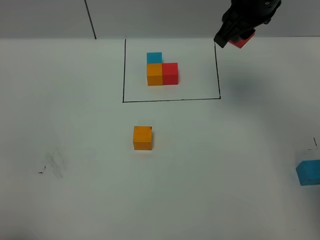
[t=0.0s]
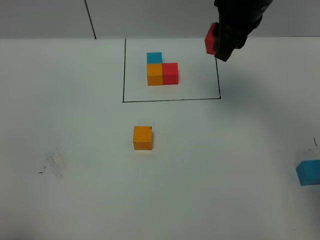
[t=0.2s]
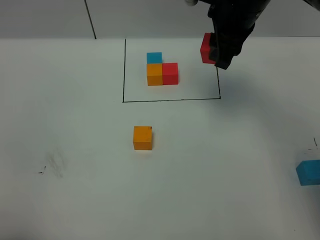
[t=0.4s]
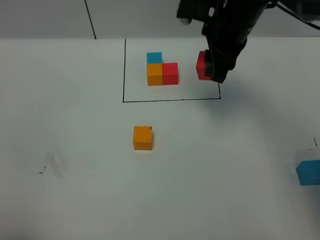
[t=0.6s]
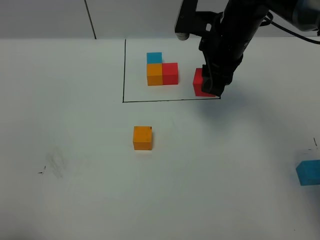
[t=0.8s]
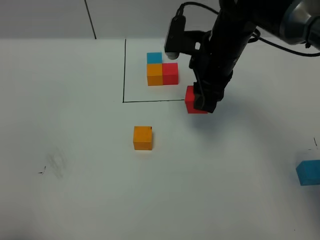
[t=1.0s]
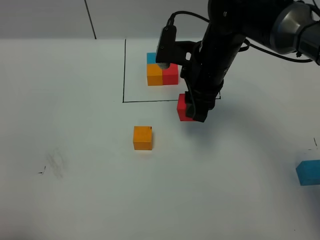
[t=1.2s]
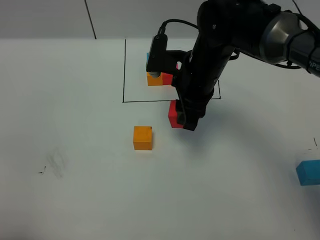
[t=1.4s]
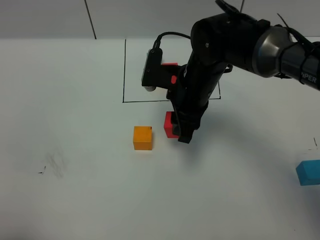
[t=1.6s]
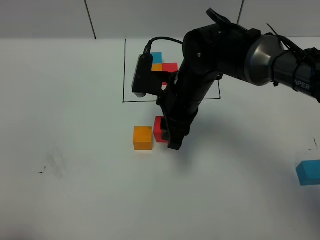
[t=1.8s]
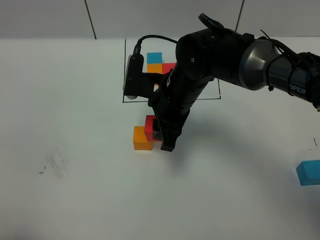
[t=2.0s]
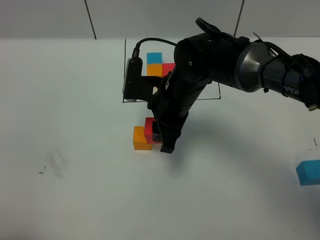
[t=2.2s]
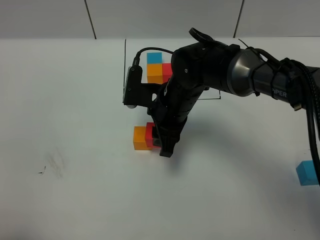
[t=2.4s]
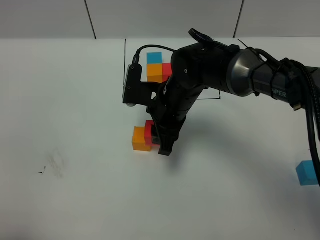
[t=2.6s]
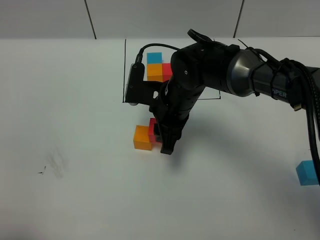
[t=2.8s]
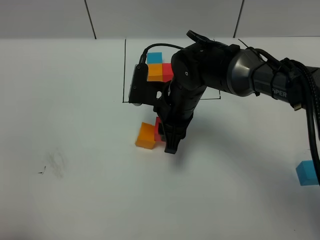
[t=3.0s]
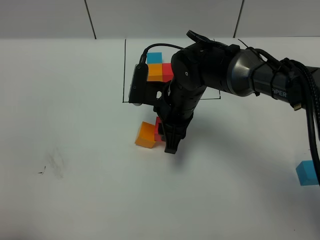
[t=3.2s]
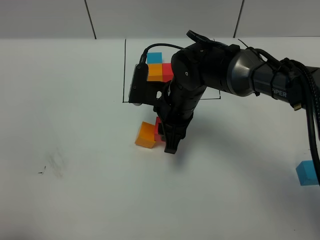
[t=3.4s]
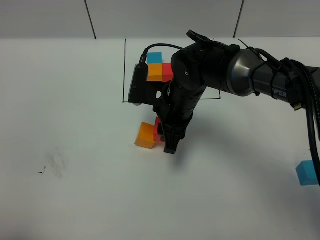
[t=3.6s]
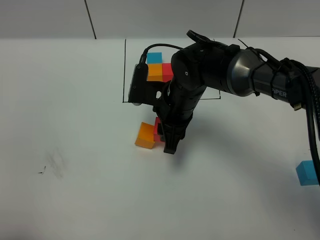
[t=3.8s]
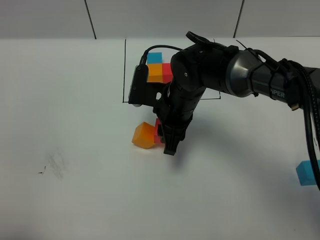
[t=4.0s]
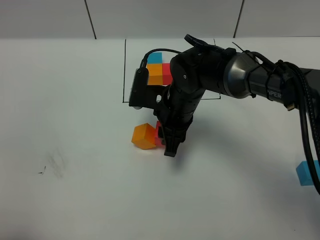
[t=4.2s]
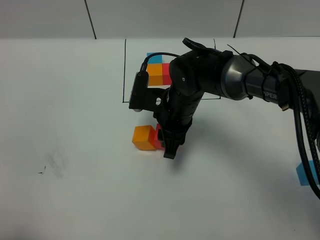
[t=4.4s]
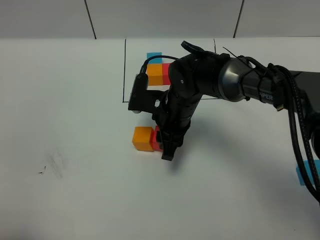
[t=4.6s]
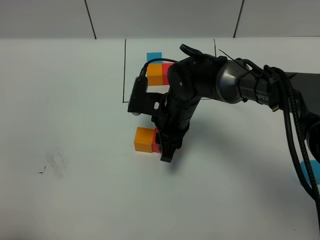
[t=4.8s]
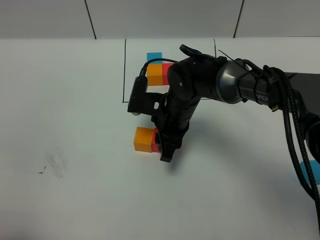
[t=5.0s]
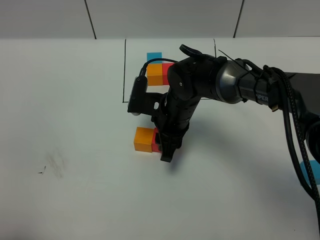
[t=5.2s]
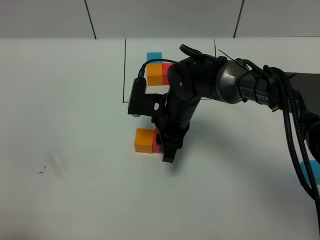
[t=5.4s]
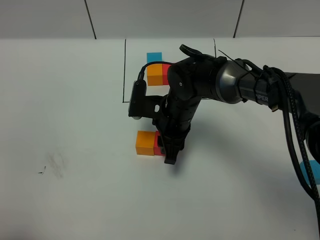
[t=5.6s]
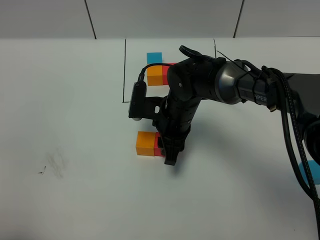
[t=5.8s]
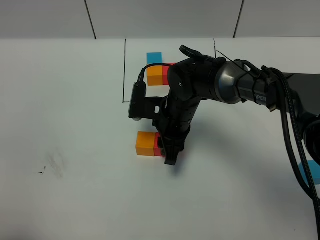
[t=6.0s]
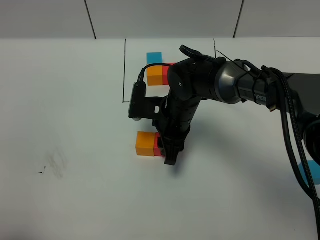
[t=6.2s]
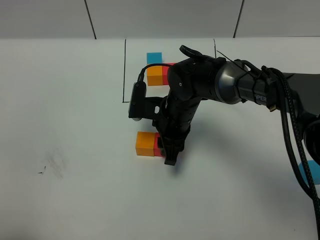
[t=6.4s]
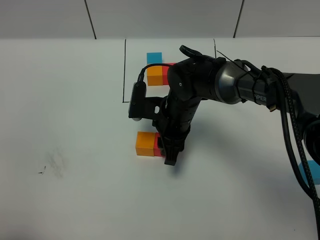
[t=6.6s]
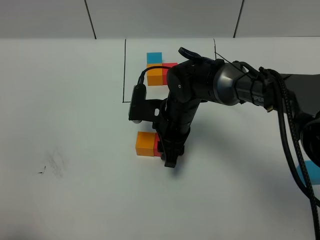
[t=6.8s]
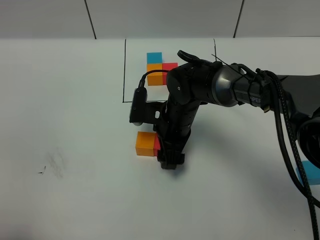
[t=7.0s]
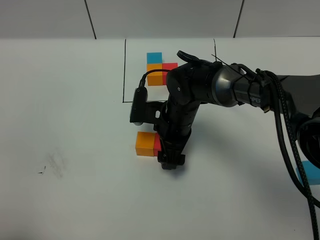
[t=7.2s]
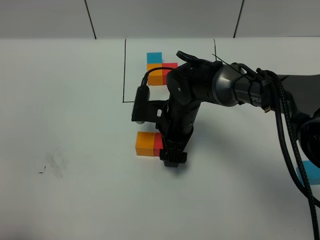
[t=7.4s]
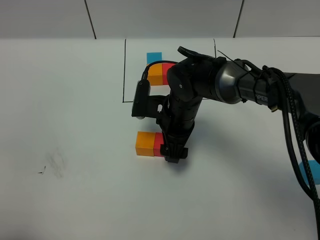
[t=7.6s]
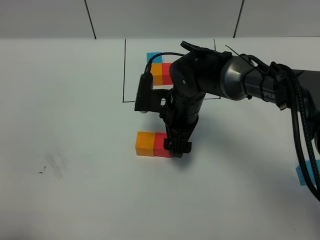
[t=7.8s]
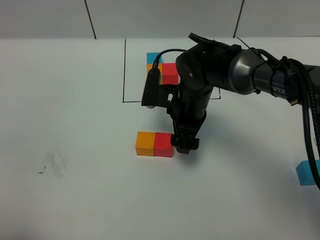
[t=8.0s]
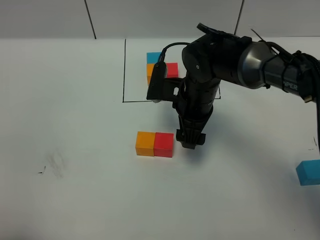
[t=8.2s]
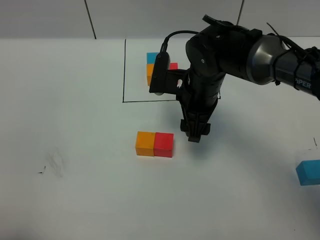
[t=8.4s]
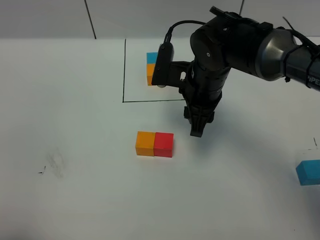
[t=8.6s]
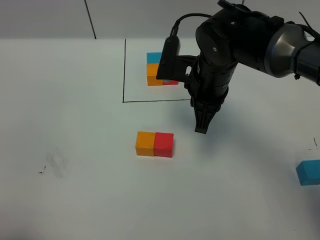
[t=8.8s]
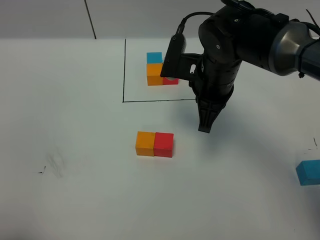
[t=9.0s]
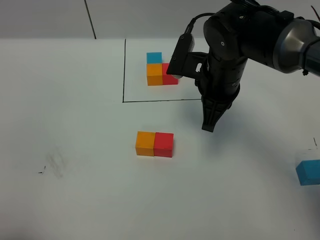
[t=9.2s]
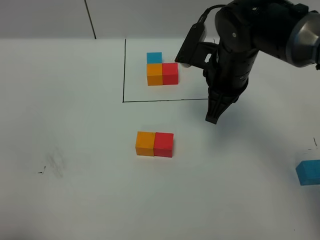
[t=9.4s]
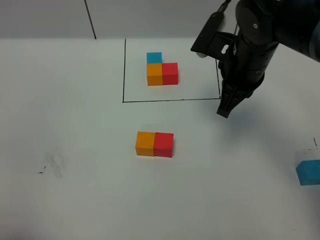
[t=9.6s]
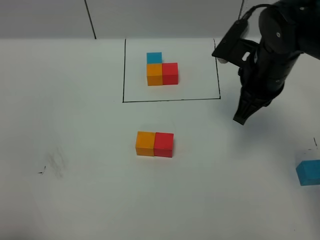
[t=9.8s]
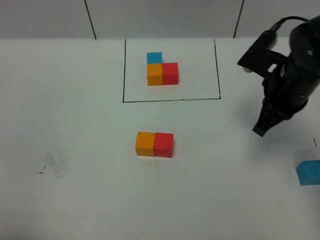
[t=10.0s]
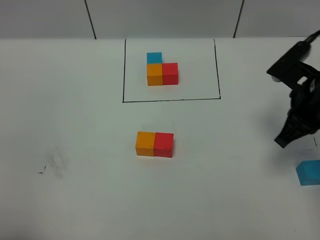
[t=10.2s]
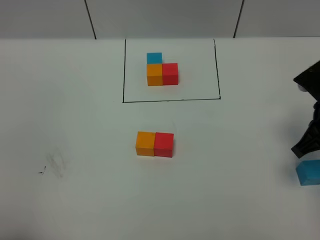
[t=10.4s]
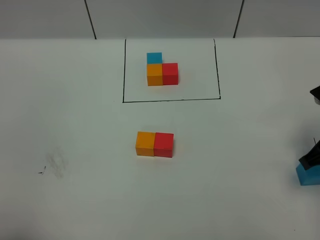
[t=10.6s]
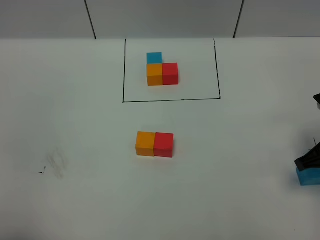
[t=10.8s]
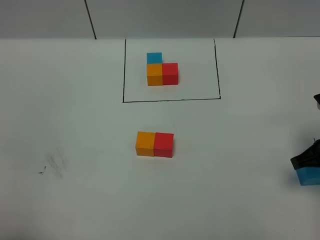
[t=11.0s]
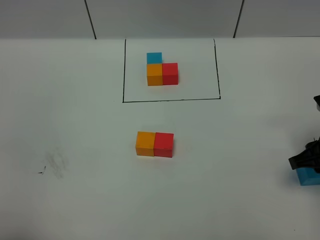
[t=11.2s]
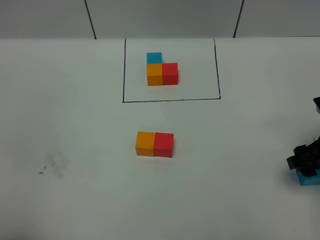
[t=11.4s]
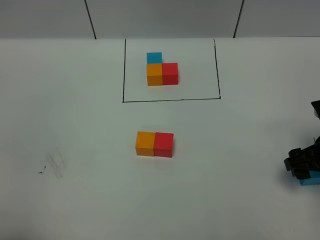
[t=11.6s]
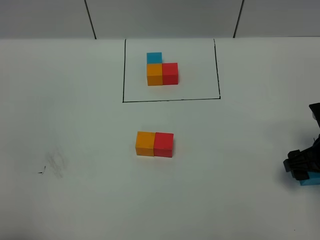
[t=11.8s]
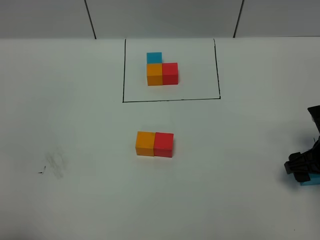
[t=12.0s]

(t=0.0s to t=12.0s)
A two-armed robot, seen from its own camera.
Task of the whole recording: According to the building block template in front, assemble the scattered blocks together.
Step, t=0.0s - t=7.8s: Put the red cube on the right of the orange cube.
t=0.0s - t=1.6s: The right gripper goes some 15 cm downward, to the left and backward.
t=1.6s - t=4.4s: The grippers stay close to where they were, moving slightly.
t=4.4s - t=6.0s: The grippers stay close to where they were, moving slightly.
t=6.0s - t=7.6s: The right gripper opens up.
t=7.6s - t=9.0s: The right gripper moves upward and to the right, about 10 cm, and closes.
t=9.0s - t=10.4s: The right gripper moves to the right and backward, some 20 cm.
t=10.4s - t=12.0s: The right gripper goes about 10 cm downward, and opens its fingers.

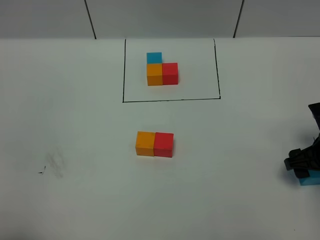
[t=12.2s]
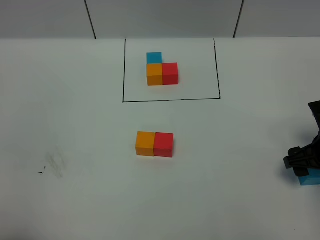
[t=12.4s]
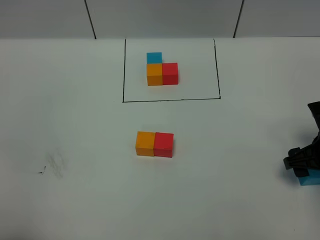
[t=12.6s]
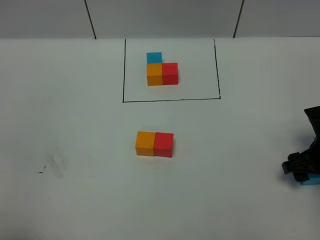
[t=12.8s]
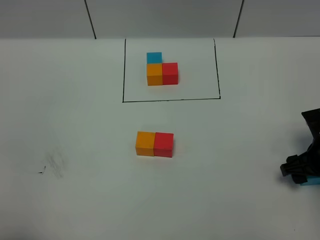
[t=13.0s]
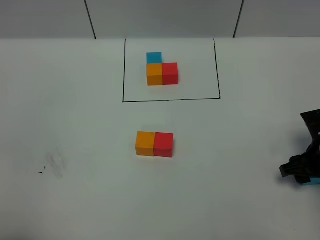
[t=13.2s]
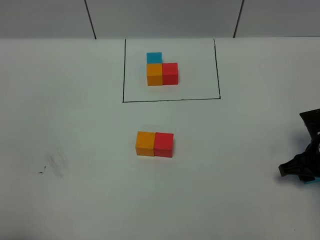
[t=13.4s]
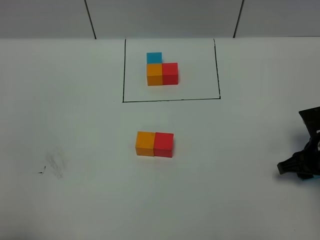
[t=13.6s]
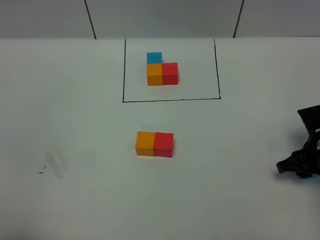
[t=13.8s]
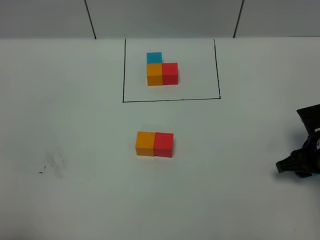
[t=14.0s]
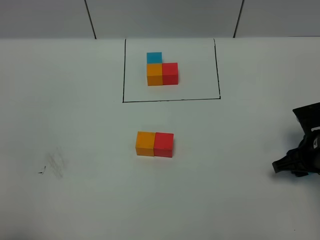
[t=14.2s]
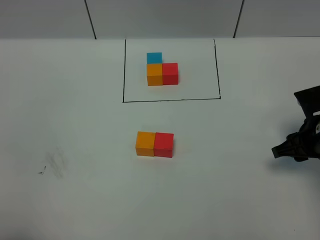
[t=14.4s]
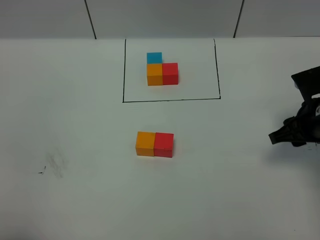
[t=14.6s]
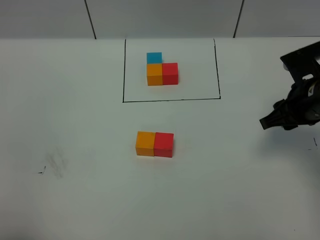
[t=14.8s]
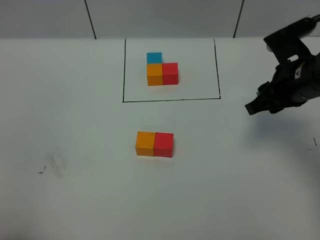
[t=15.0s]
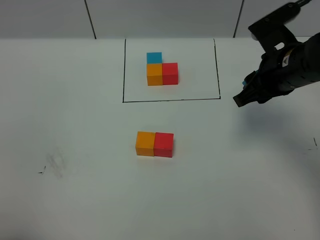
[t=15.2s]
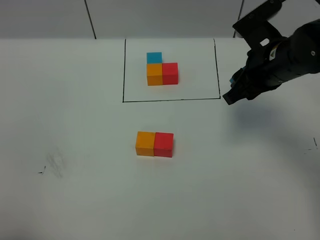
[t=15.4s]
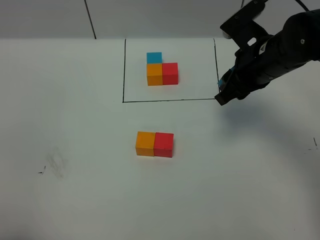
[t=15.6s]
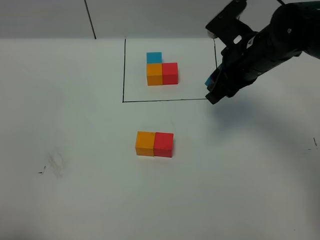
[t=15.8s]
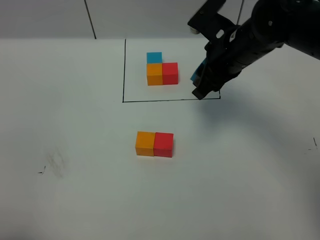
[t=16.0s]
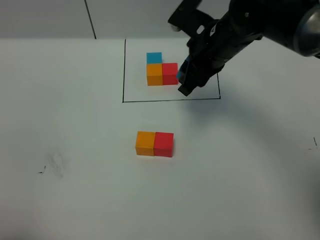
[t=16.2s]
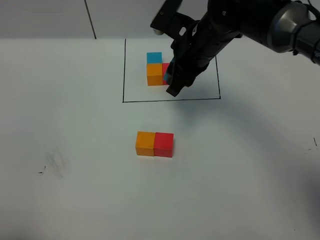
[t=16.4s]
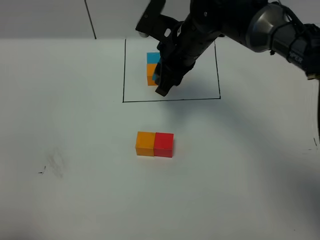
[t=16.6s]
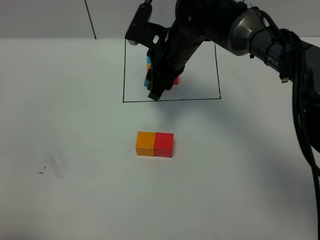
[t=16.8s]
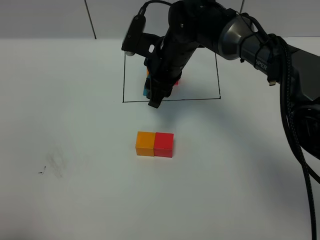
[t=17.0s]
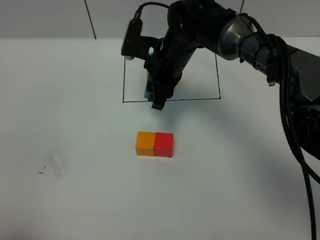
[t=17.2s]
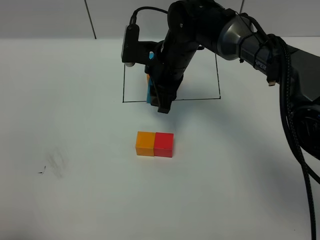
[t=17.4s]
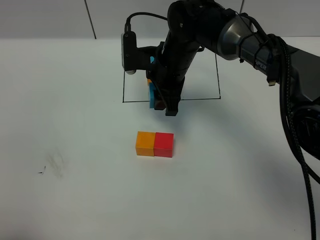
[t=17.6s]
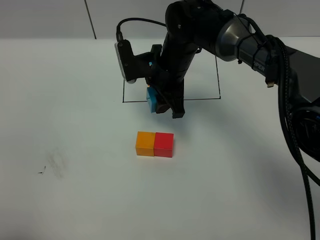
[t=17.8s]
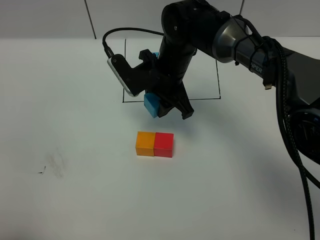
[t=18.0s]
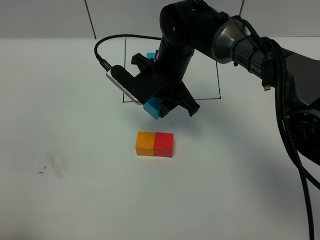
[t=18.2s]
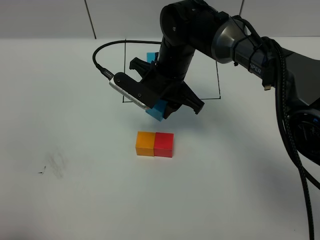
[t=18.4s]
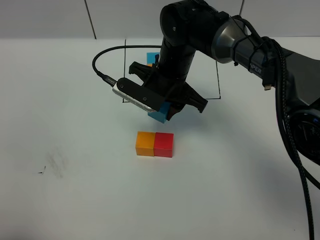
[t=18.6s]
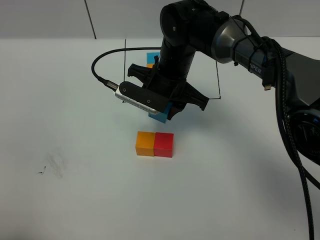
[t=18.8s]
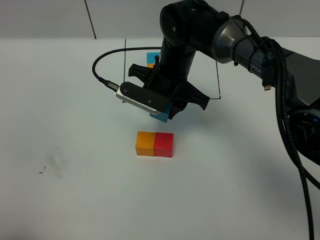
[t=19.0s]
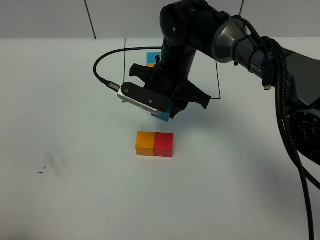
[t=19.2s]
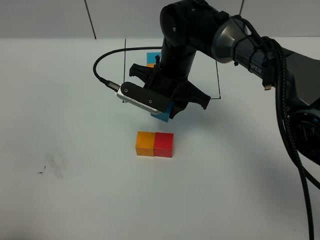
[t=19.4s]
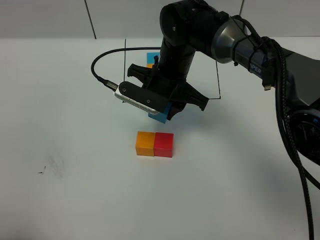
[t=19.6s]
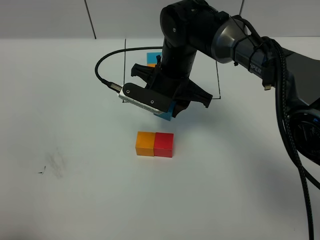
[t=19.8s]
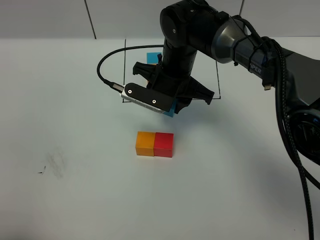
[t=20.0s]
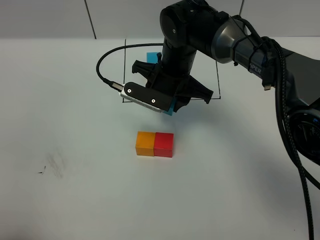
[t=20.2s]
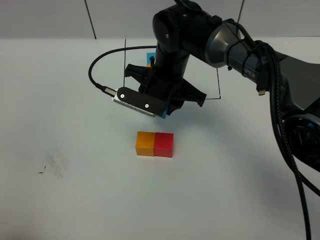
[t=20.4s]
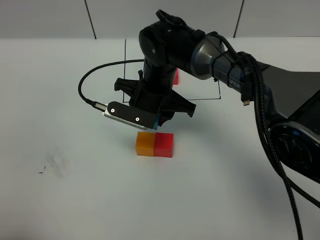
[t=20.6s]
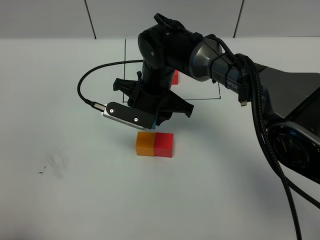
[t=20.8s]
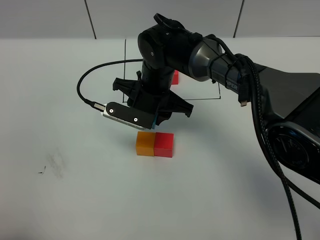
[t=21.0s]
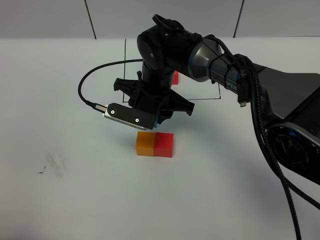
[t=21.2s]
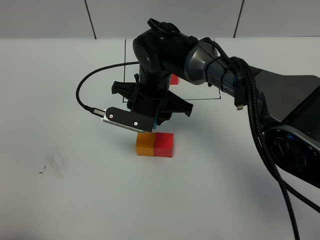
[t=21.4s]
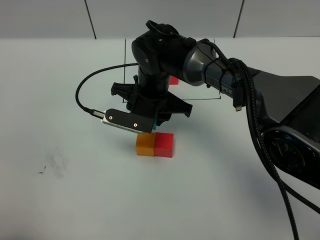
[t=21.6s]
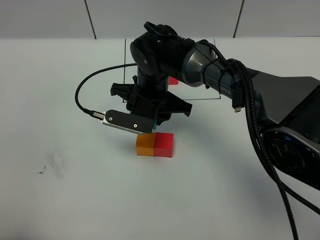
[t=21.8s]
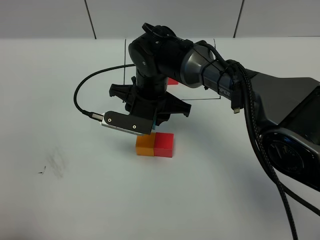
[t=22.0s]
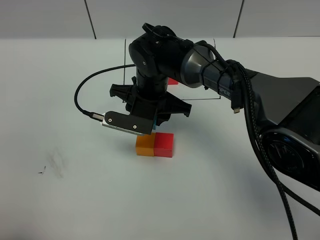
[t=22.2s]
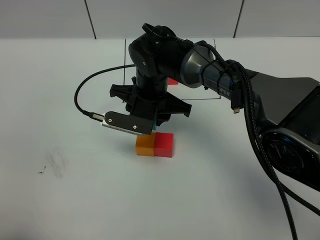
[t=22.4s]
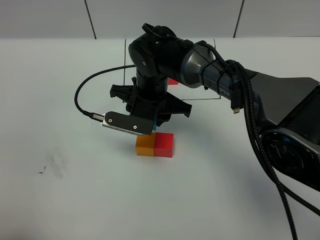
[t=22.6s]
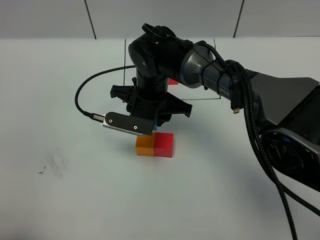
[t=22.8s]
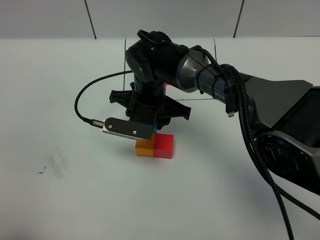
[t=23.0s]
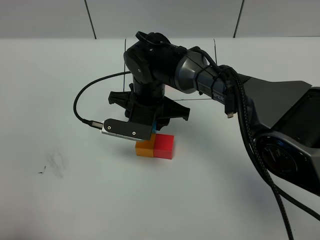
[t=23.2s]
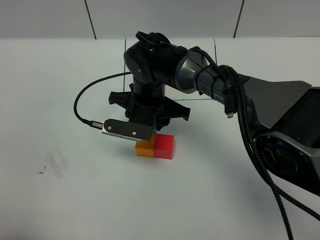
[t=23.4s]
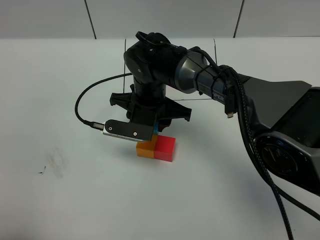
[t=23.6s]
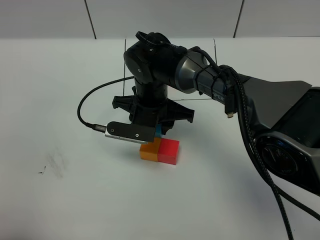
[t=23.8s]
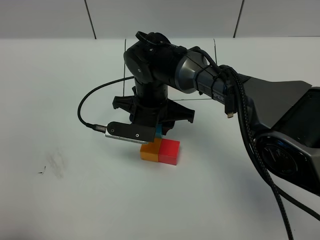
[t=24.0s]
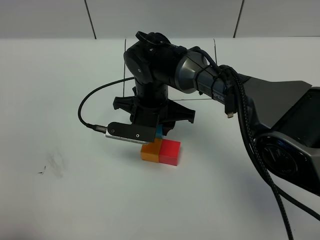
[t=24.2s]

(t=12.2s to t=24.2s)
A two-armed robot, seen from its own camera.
Task of the whole recording: According to the building block template in front, assemble the scattered blocks together.
t=12.2s - t=13.8s: The right gripper closes up.
t=13.8s - t=15.2s: The right gripper heads upward, to the left and forward, covering some 20 cm.
t=15.2s - t=16.6s: The right gripper goes approximately 15 cm to the left and forward.
t=18.2s - t=19.8s: There are only small adjustments of the grippers.
t=21.2s - t=22.6s: Neither gripper changes place.
t=22.6s - t=24.2s: There are only small adjustments of the grippers.
